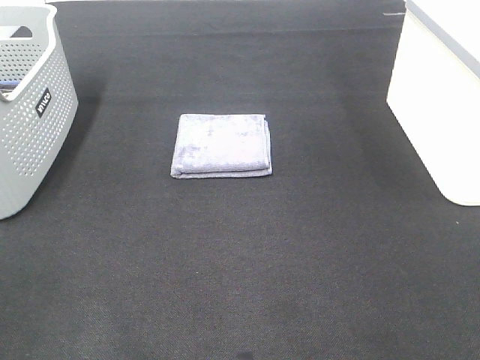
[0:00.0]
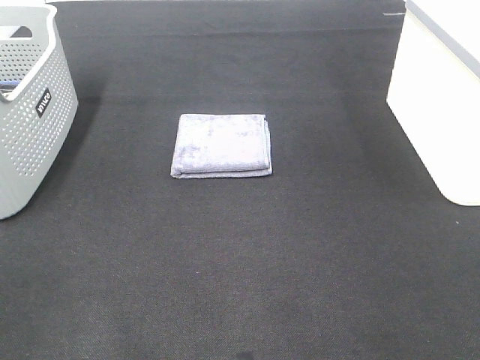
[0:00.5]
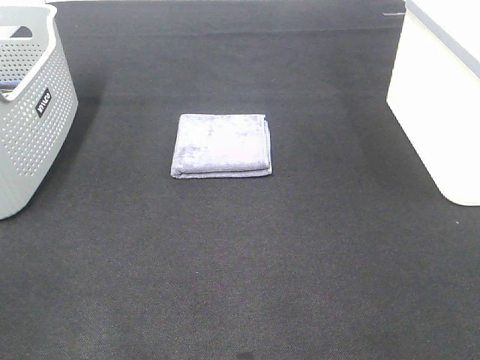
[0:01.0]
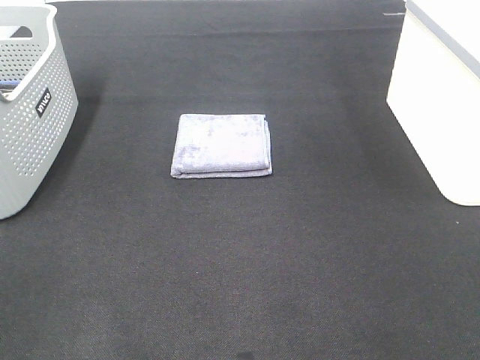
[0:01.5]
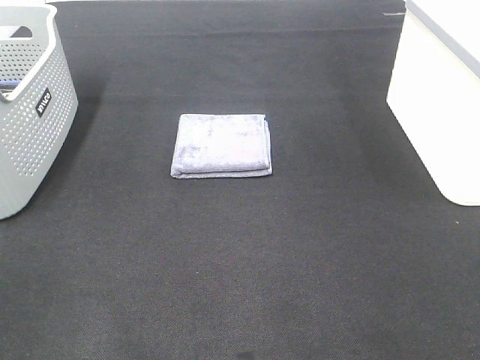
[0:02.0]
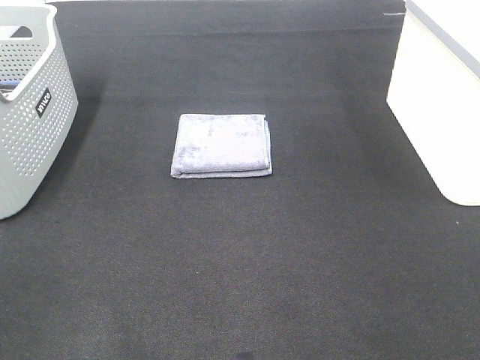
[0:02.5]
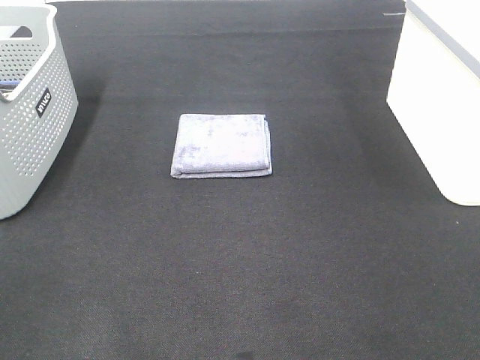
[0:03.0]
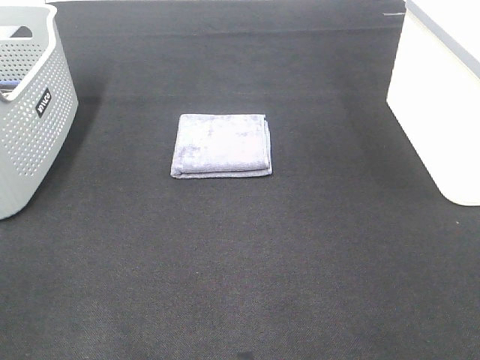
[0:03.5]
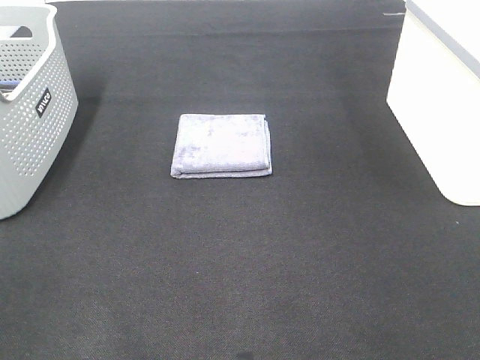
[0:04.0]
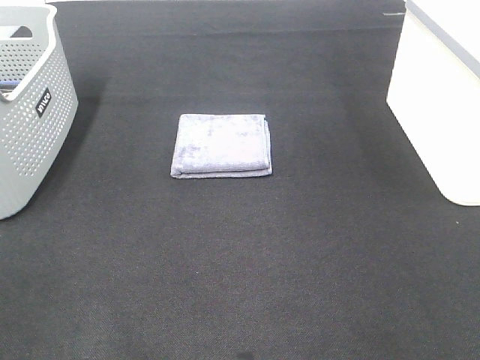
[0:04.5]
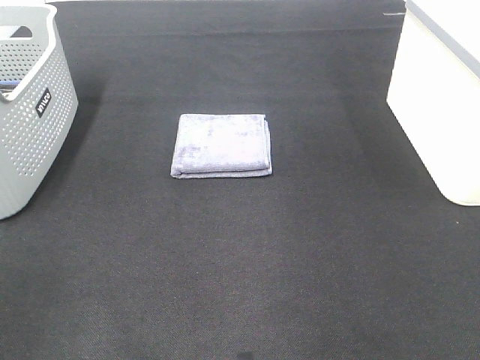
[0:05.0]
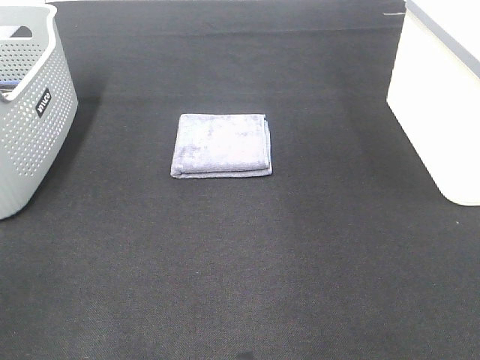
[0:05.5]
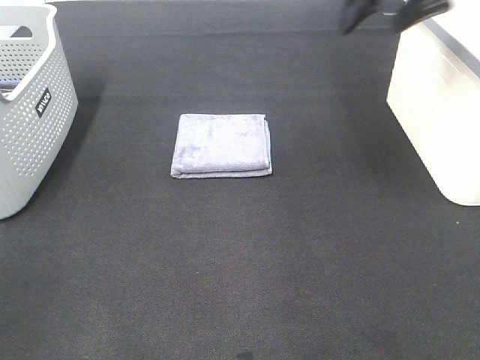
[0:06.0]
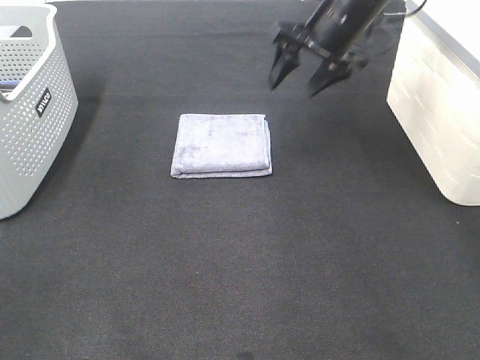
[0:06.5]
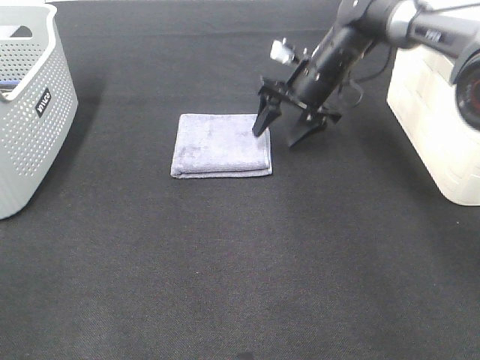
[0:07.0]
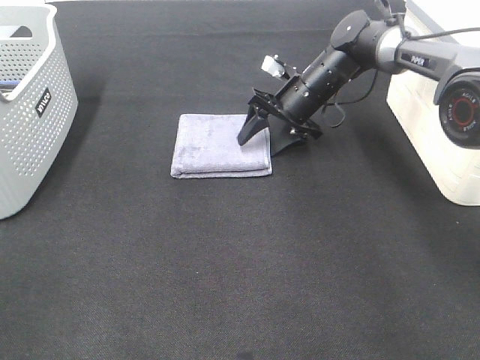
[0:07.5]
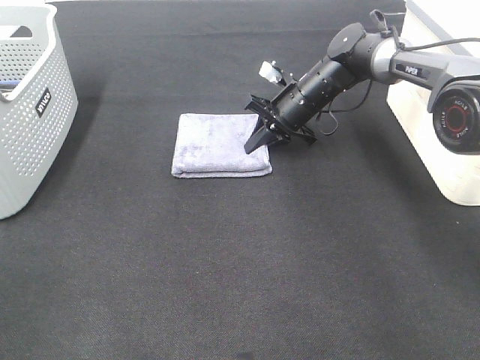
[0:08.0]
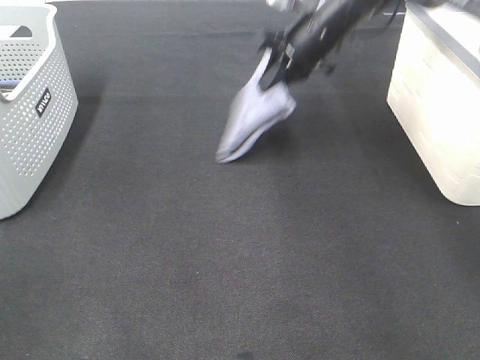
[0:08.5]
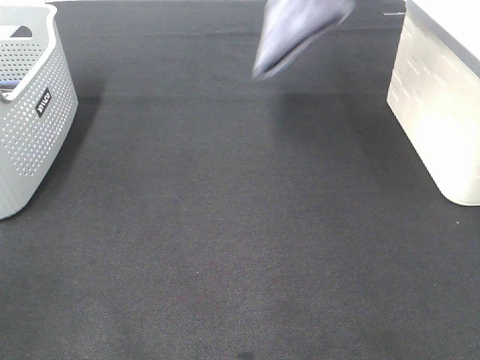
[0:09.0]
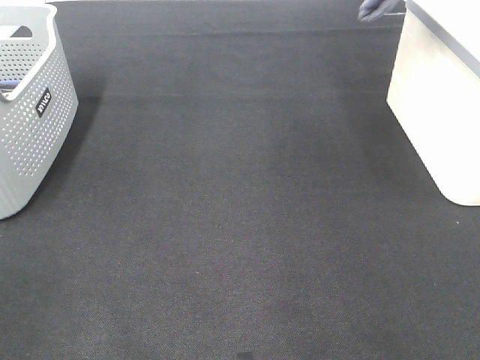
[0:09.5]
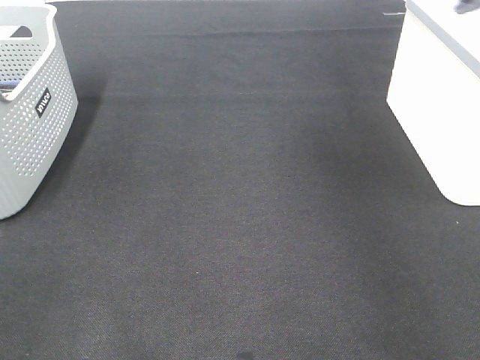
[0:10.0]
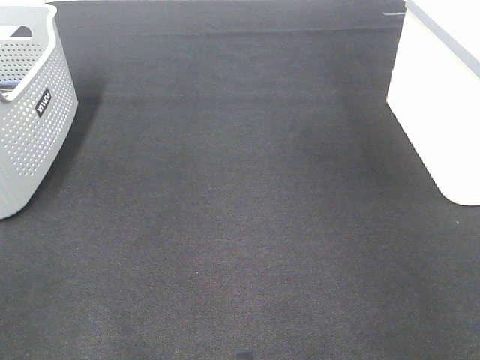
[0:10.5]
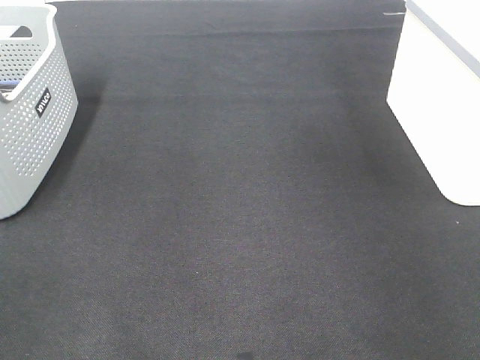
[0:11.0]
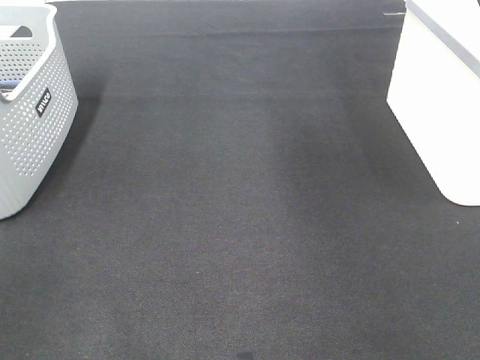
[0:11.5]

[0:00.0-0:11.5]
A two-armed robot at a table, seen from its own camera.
Step, 0:00.0 to 0:07.5: Right hand: grab the folded grey towel.
Step, 0:08.0 to 0:10.5: Right hand: place the grey towel in right basket.
0:00.0 to 0:04.0: Neither gripper changes place.
0:04.0 to 0:06.0: The right gripper shifts about 40 cm forward.
0:06.0 to 0:07.5: The right gripper goes about 20 cm downward.
0:07.5 to 0:09.5: The right gripper goes some 35 cm upward, and closes.
0:09.5 to 0:11.5: The right gripper moves downward, about 5 cm, travels to the right and back again, some 15 cm each way, and opens up.

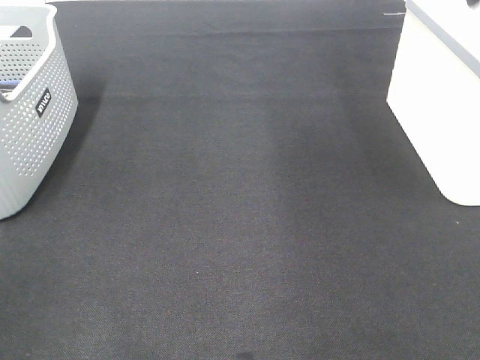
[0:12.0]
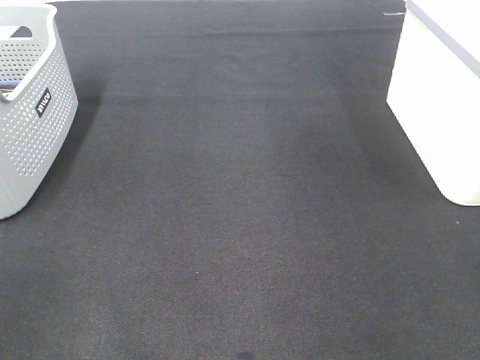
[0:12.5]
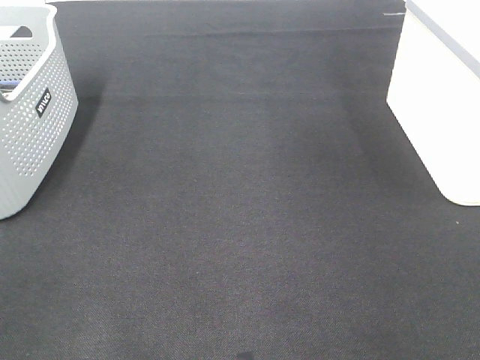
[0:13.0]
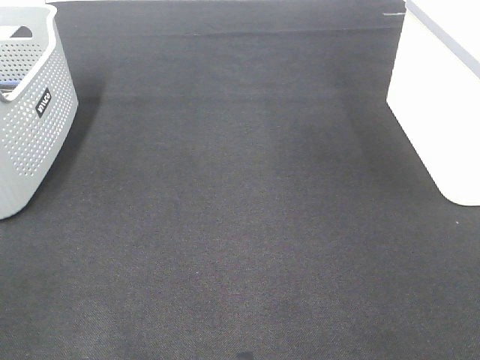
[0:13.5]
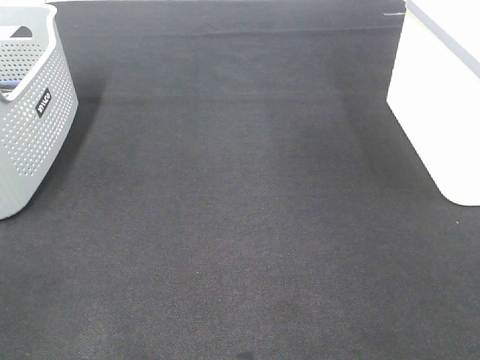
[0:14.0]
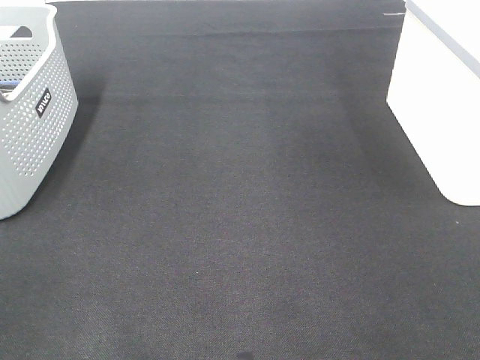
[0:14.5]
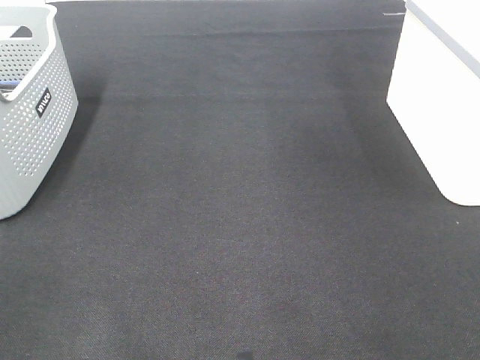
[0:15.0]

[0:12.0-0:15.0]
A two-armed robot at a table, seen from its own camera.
0:13.5 to 0:15.0: Both grippers stay about where they are.
